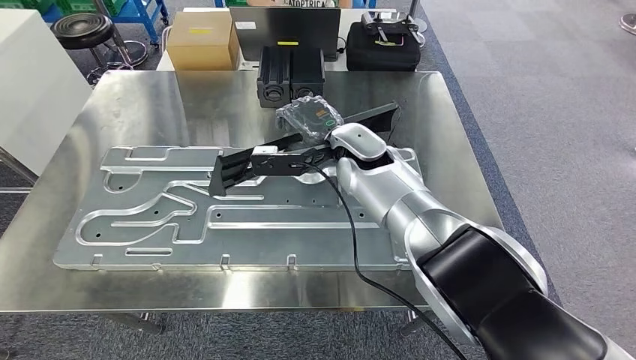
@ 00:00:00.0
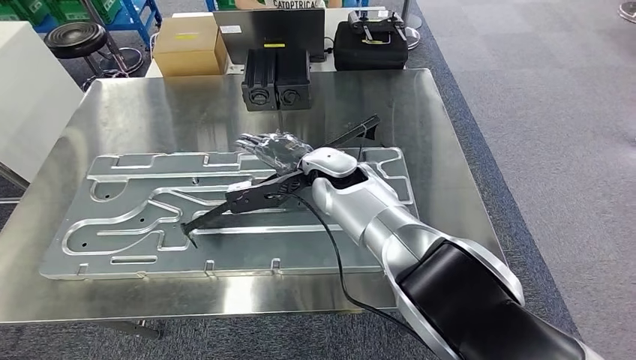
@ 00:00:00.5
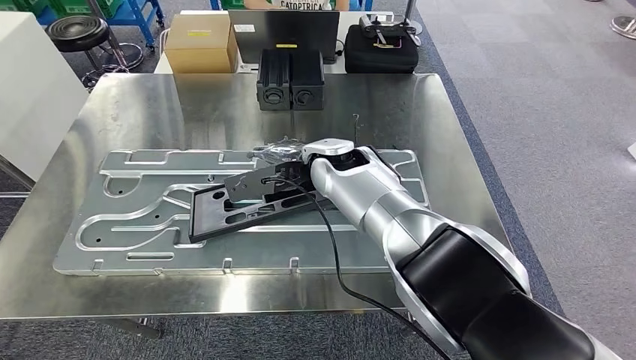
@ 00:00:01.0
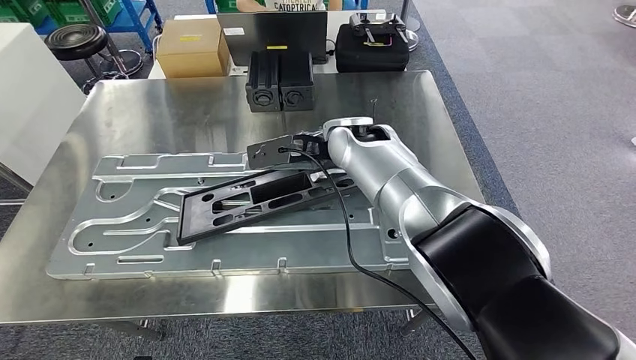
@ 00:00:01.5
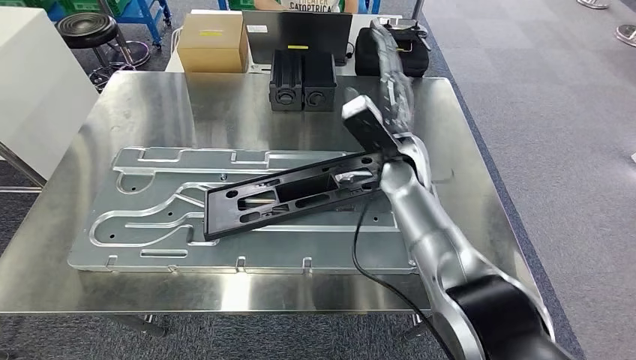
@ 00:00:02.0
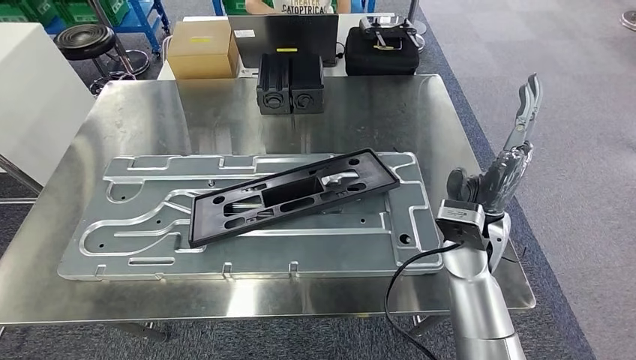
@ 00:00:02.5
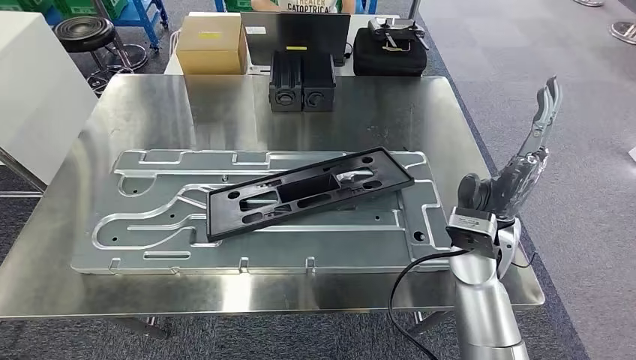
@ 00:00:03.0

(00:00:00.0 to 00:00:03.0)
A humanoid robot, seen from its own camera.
Step, 00:00:00.0 - 00:00:02.5: Insert the large material into the corresponding slot on the workbench.
